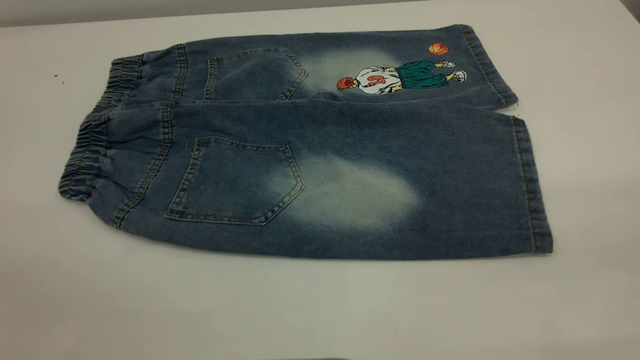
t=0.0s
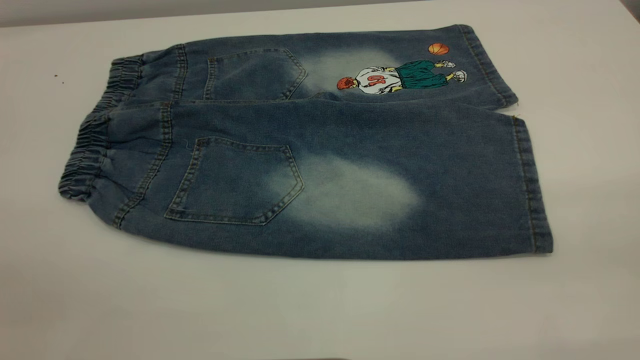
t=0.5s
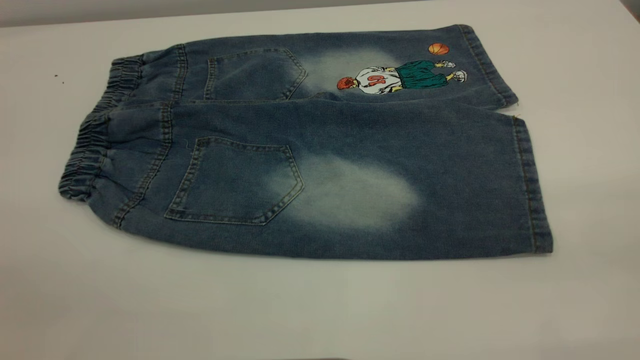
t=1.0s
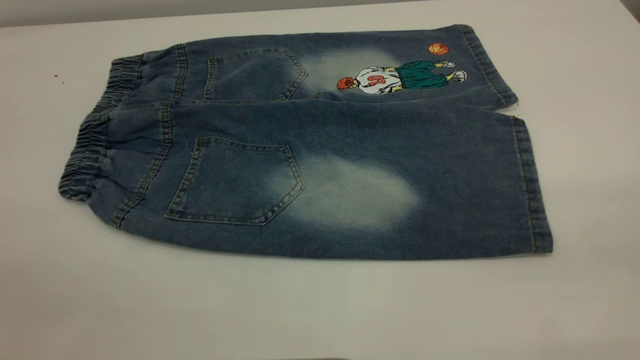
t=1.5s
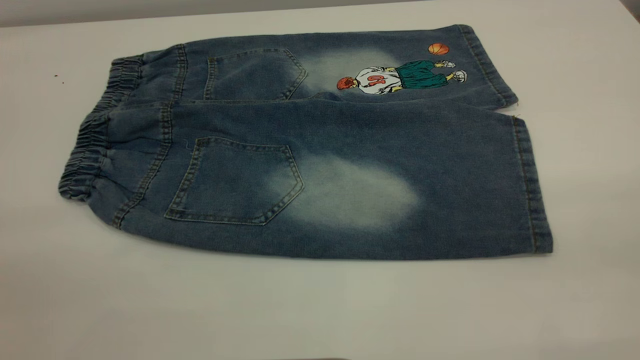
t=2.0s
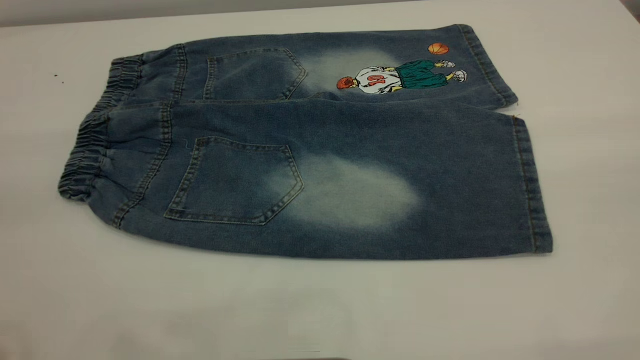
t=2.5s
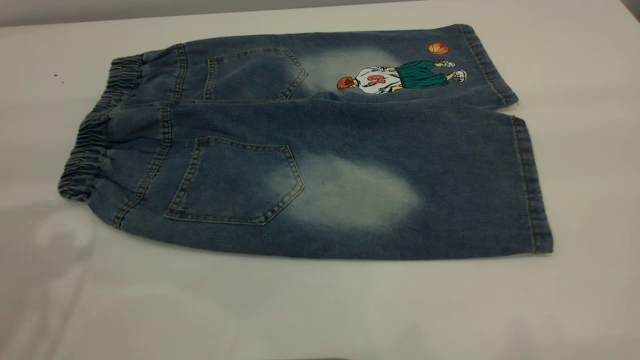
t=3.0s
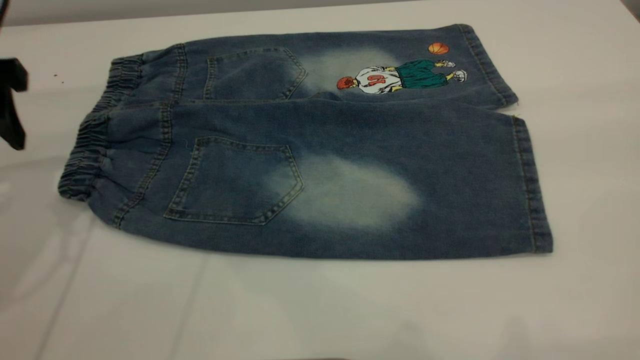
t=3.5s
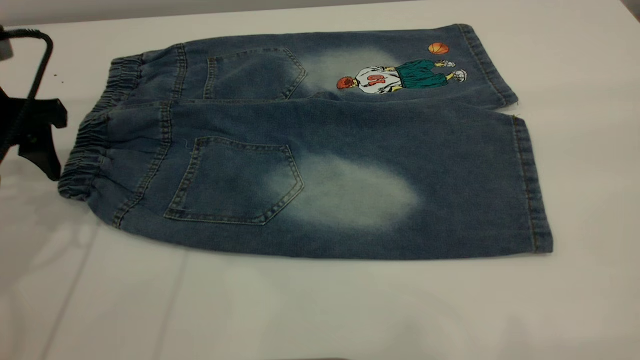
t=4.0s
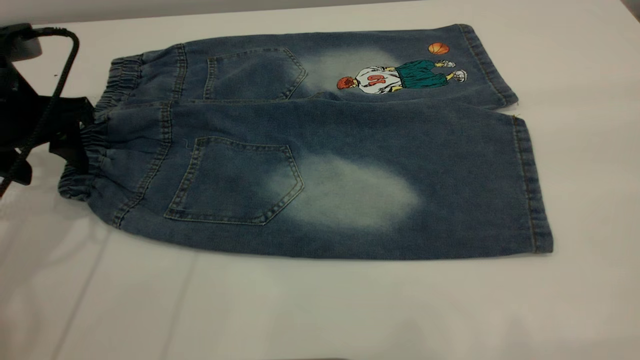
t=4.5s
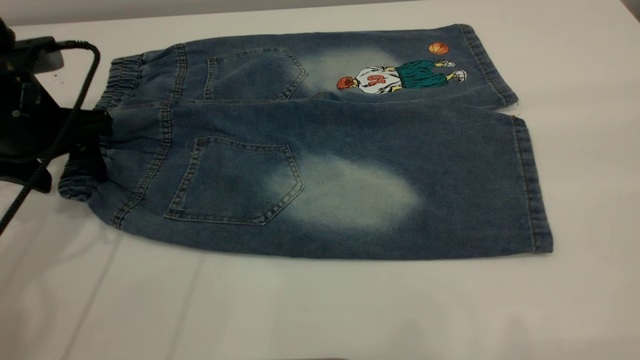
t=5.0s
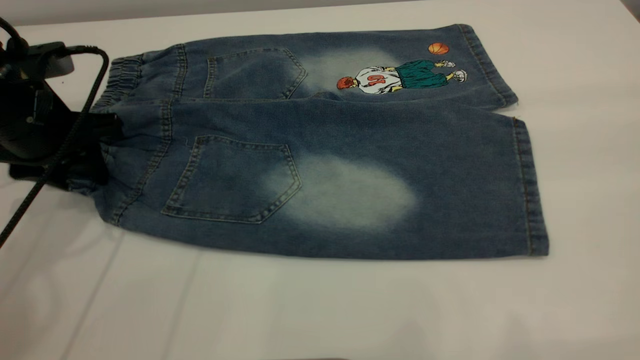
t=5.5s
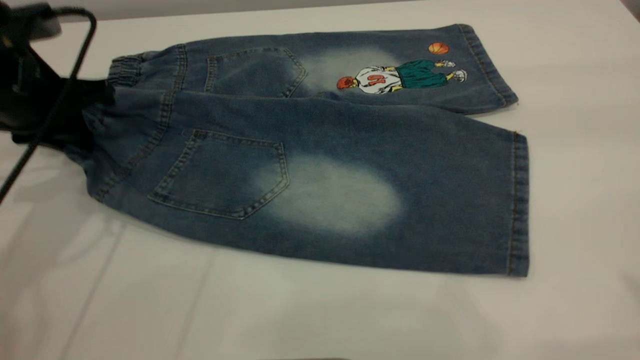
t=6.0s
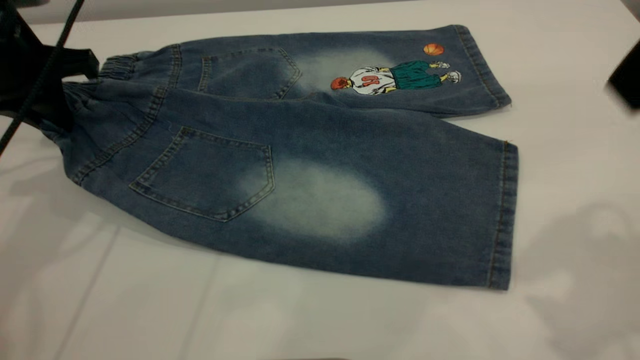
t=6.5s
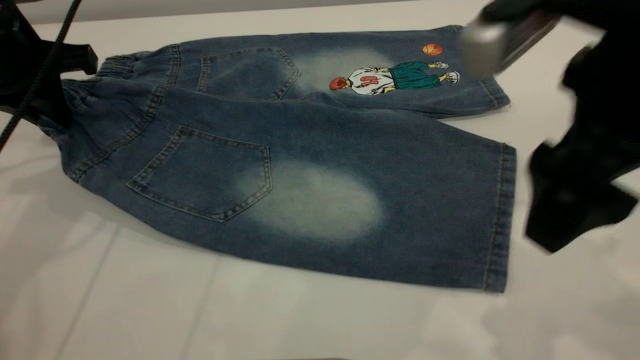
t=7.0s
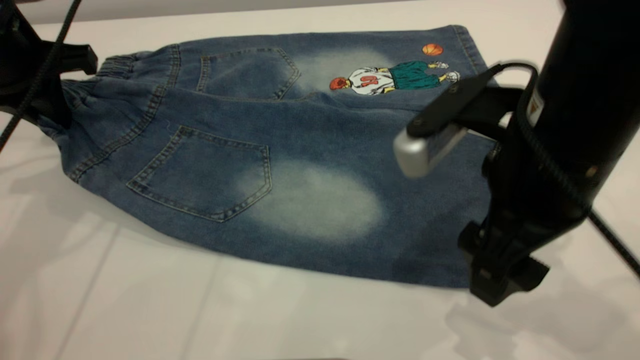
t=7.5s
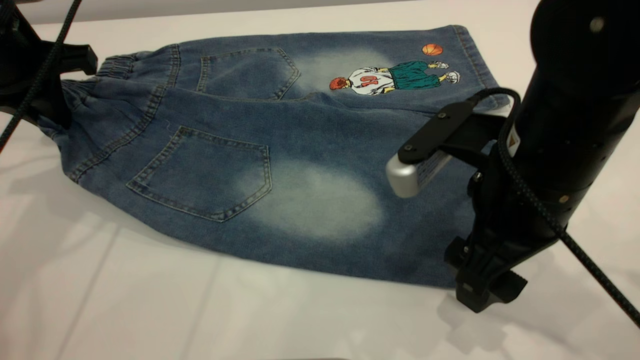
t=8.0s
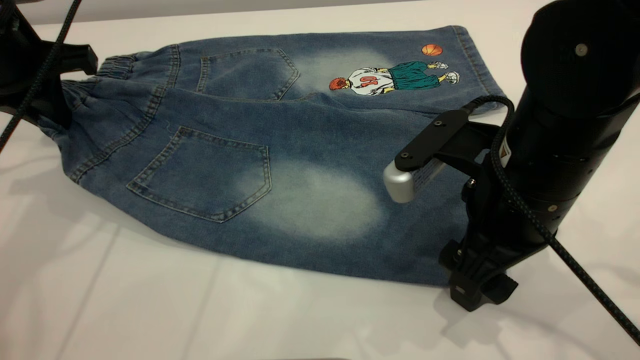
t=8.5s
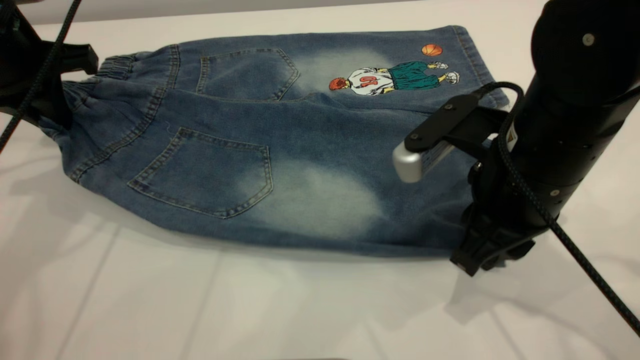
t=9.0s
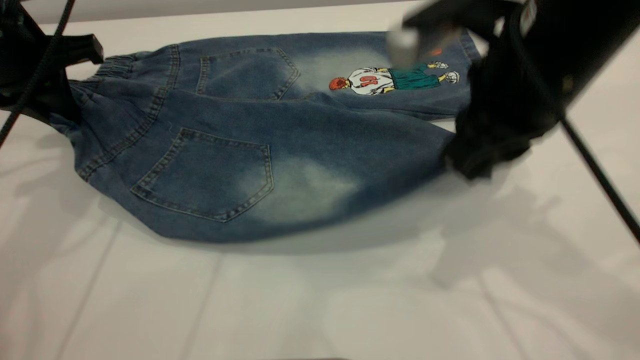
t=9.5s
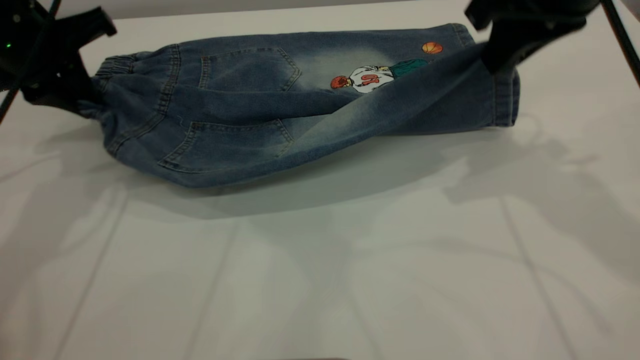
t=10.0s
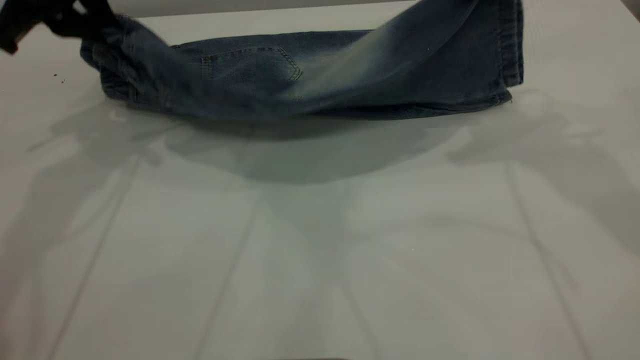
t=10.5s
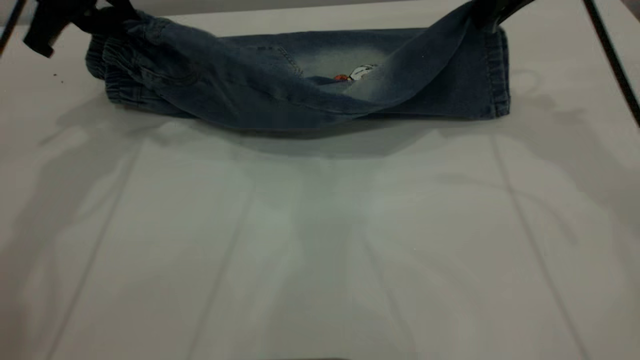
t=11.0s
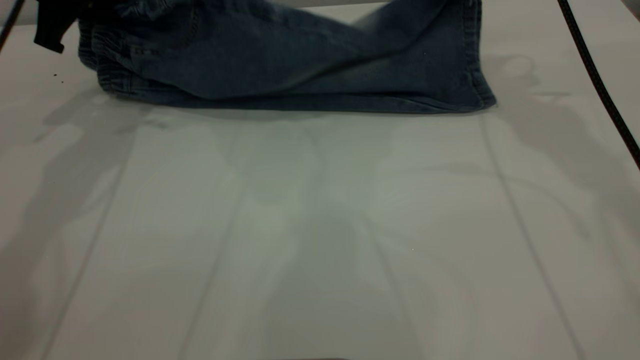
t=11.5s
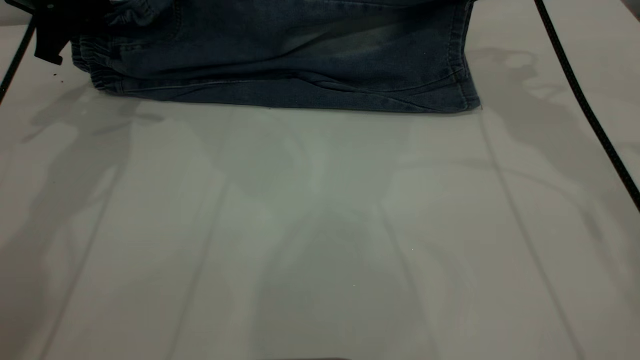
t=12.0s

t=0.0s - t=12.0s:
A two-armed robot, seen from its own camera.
t=2.0s - t=4.0s: The left gripper heads forward and downward, covering roughly 35 cm.
t=4.0s - t=6.0s: The left gripper closes up.
t=6.0s - t=8.0s: The right gripper goes about 30 cm downward and to the left.
t=8.0s - t=10.0s: The right gripper is displaced upward, forward and to the right by approximately 15 cm, and closes up.
t=10.0s - t=12.0s: The right gripper moves forward, roughly 15 cm; the left gripper goes roughly 10 cm forward.

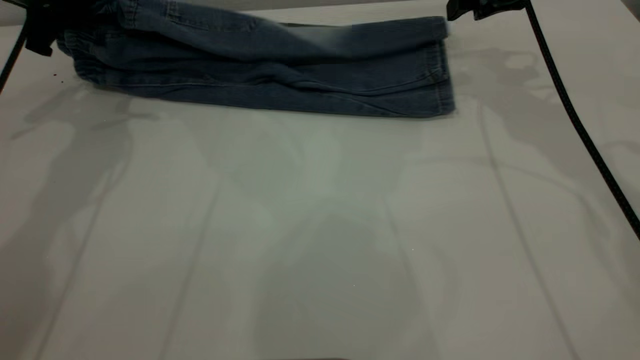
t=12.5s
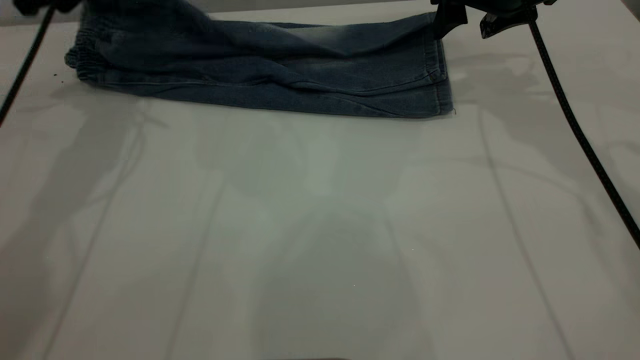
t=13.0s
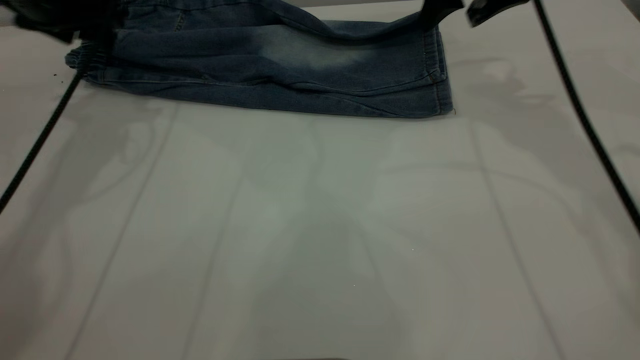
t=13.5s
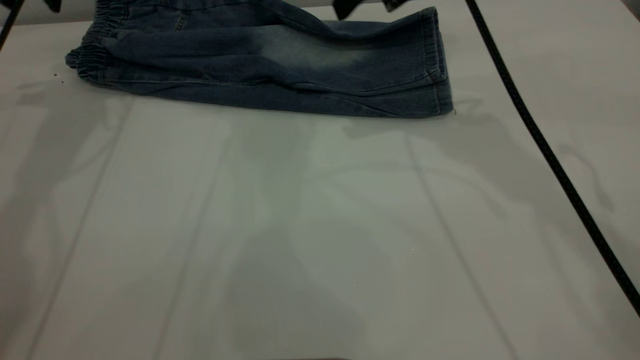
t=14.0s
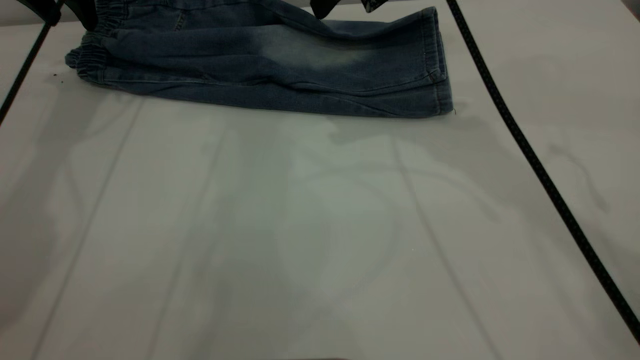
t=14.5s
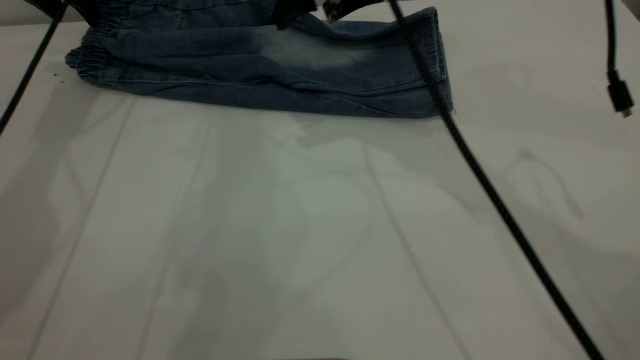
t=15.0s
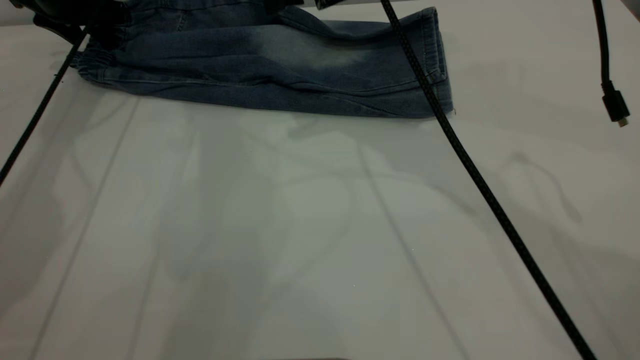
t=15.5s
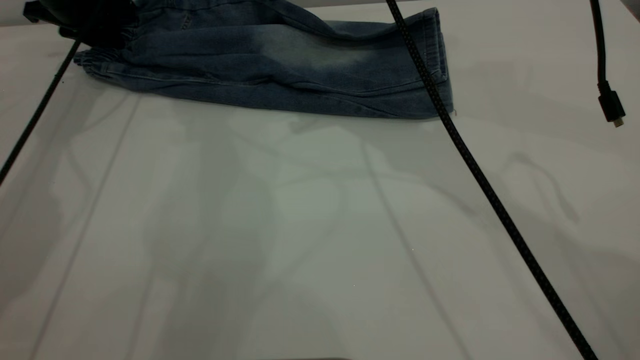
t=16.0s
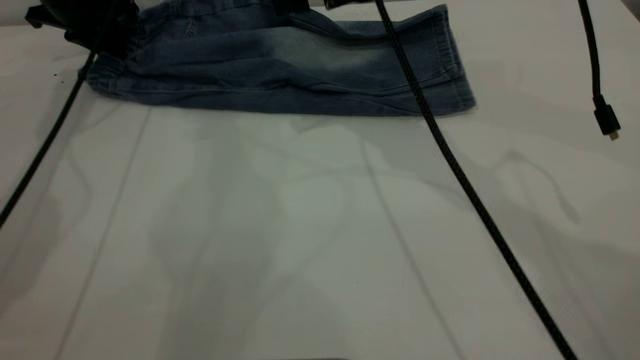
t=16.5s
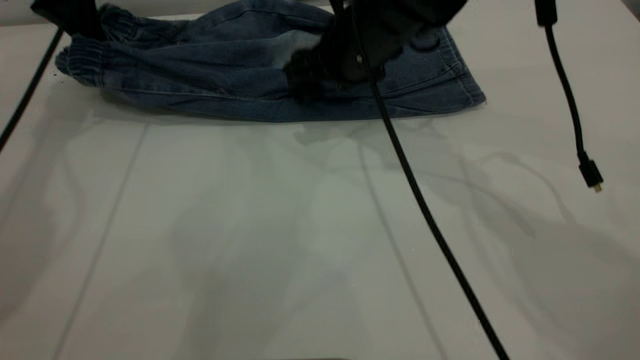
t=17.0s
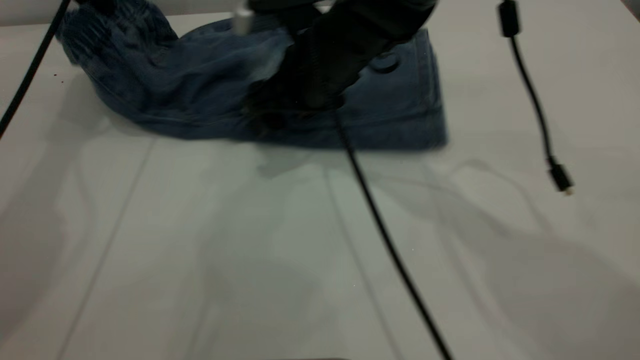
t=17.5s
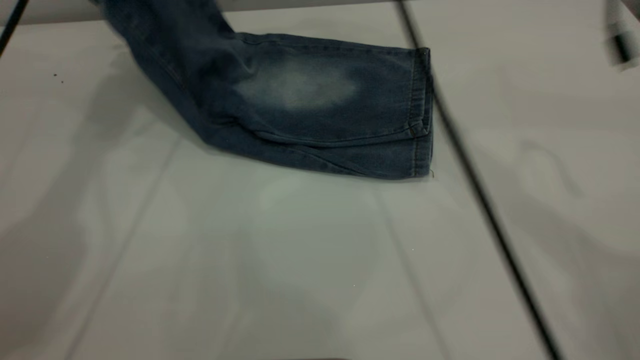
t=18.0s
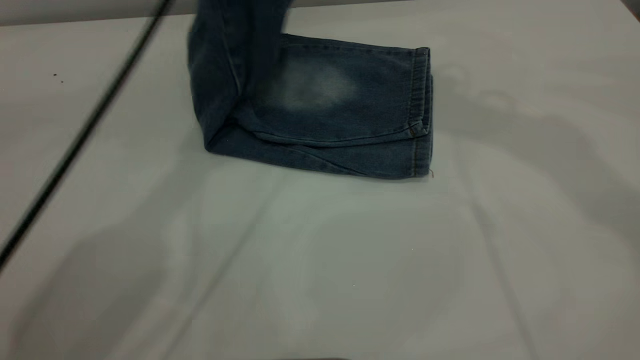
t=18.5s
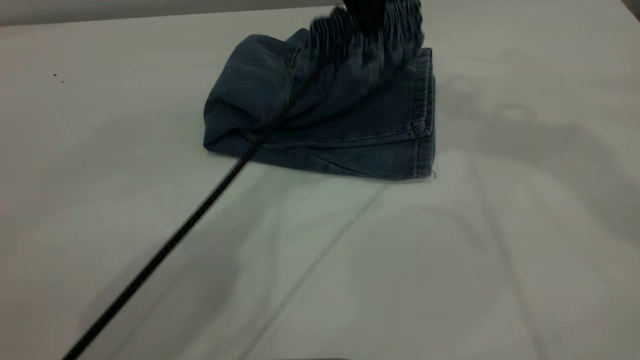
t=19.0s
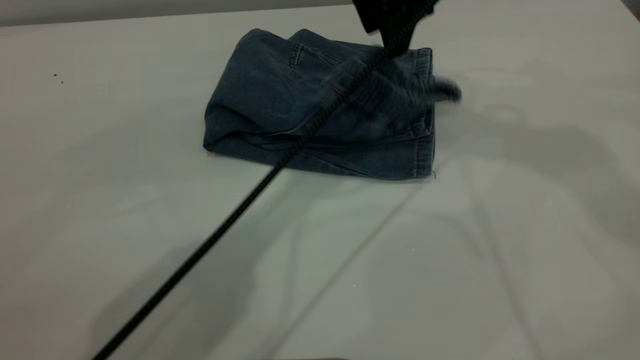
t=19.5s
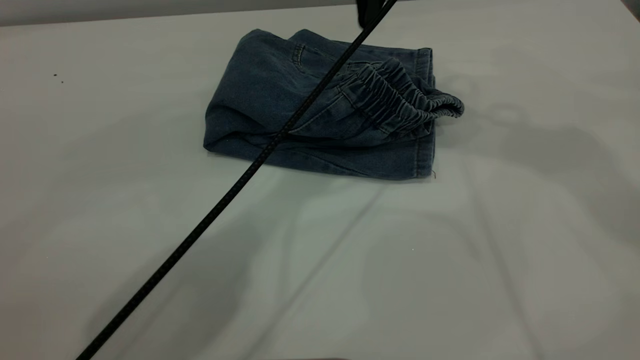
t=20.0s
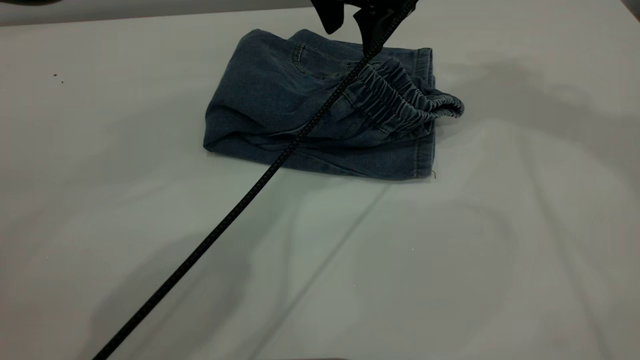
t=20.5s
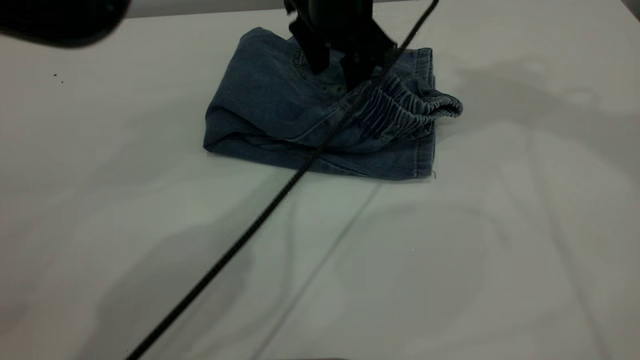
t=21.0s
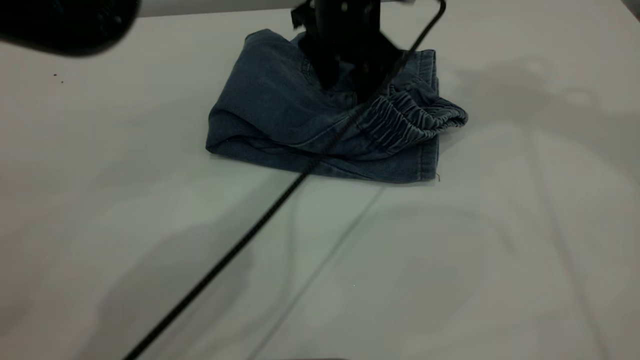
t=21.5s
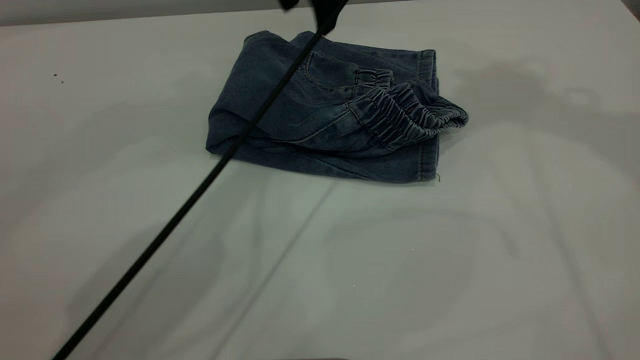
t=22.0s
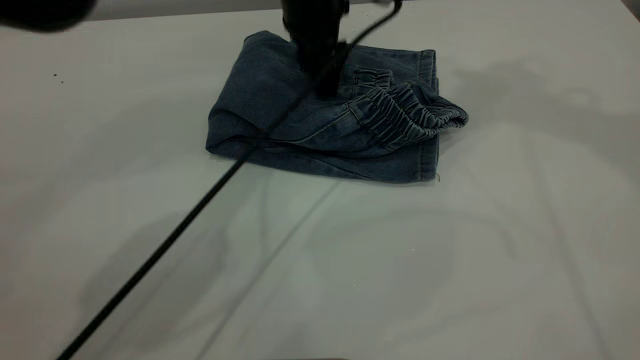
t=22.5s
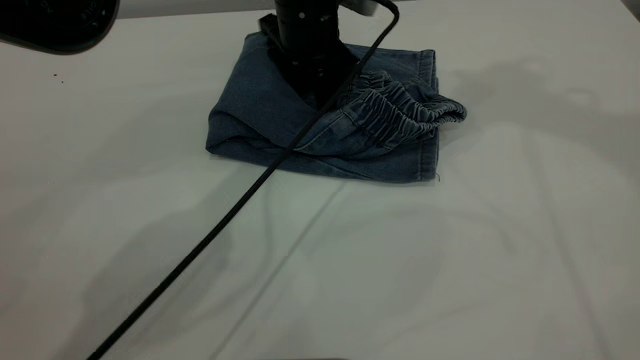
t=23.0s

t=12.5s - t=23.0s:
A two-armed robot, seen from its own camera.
Step, t=14.5s - t=19.5s: Fold the pants from left to right.
t=12.5s - t=14.5s: The left gripper shifts about 10 cm forward, and opens up. The right gripper shifts roughly 15 cm to the left and upward.
t=14.5s - t=16.5s: The right gripper changes place by roughly 5 cm; the left gripper is displaced downward by roughly 5 cm, and closes its fingers.
t=16.5s - t=19.0s: The left gripper heads to the right, covering about 35 cm; the right gripper moves upward and to the right, about 25 cm.
t=19.0s - t=21.0s: The right gripper goes some 5 cm to the right; the left gripper shifts approximately 5 cm downward, and opens up.
t=21.0s - t=23.0s: The left gripper moves some 5 cm upward and comes back.
